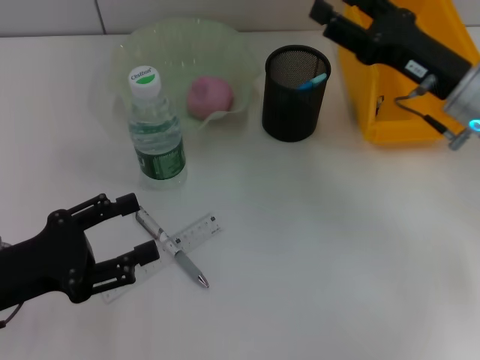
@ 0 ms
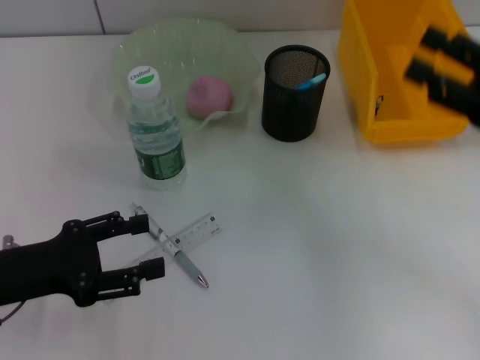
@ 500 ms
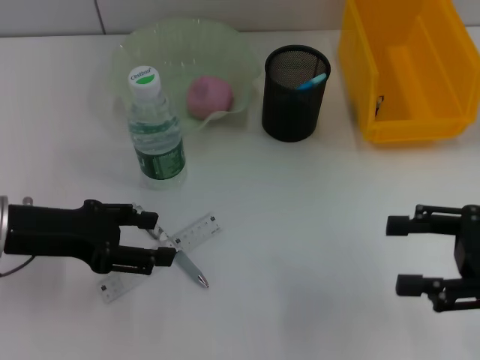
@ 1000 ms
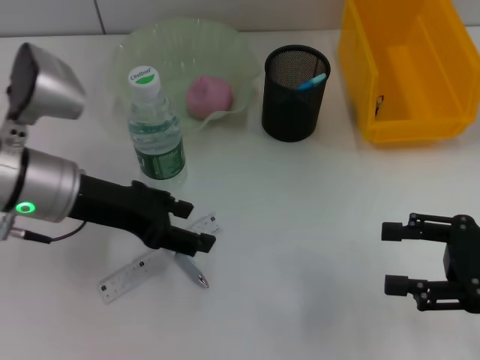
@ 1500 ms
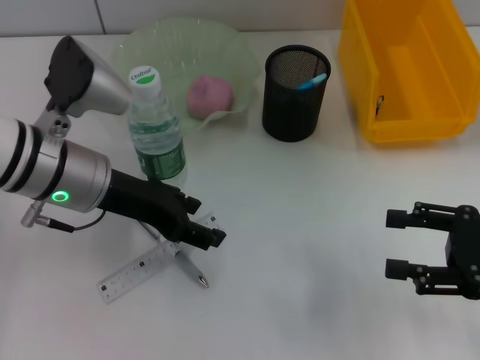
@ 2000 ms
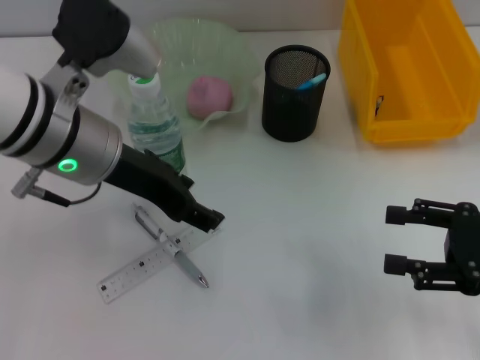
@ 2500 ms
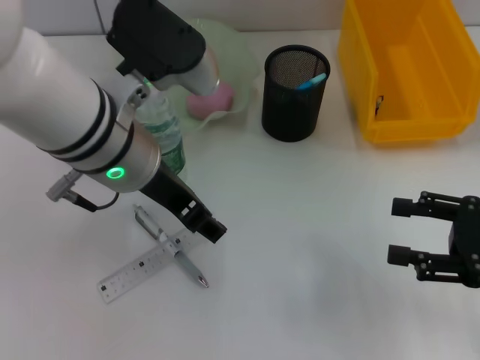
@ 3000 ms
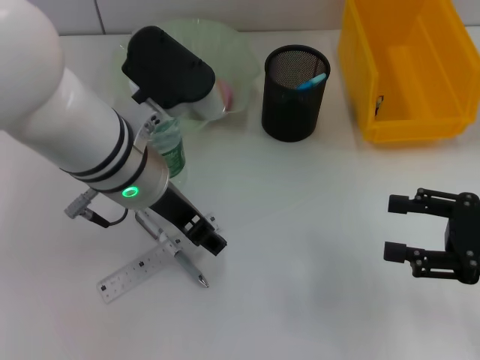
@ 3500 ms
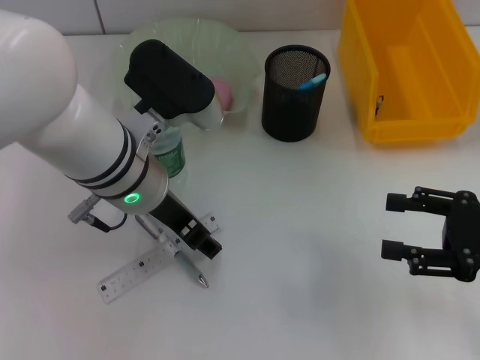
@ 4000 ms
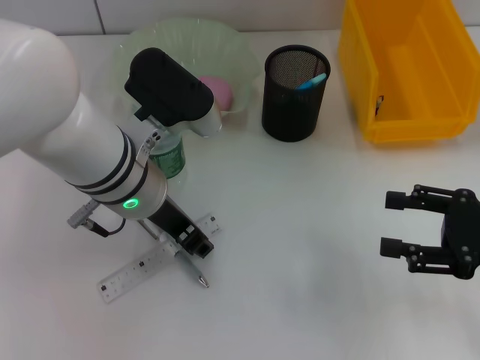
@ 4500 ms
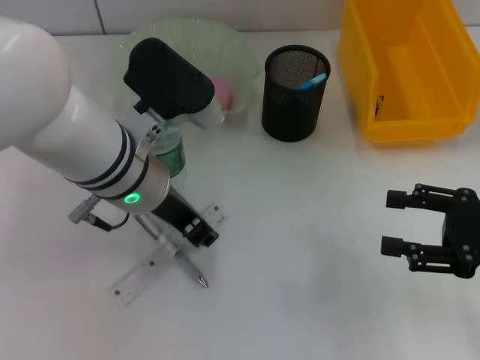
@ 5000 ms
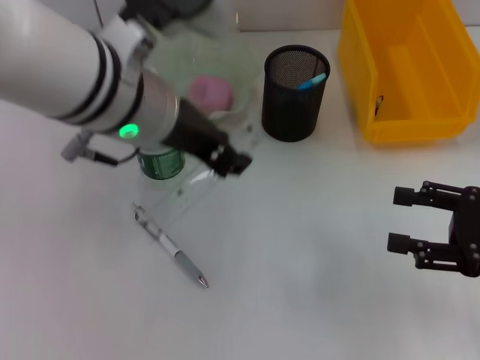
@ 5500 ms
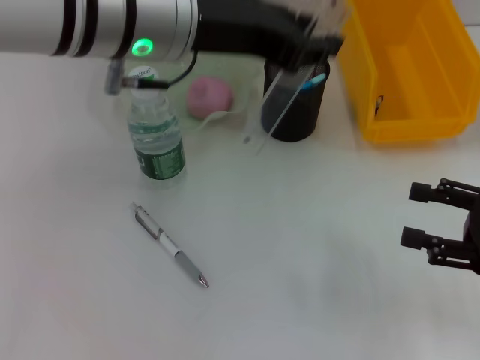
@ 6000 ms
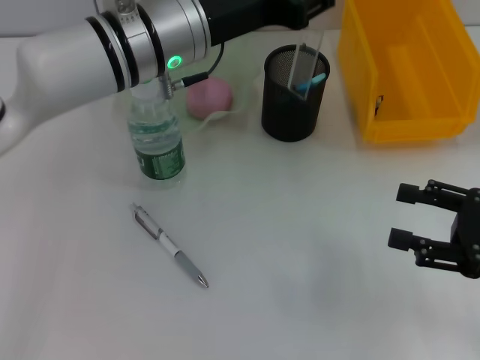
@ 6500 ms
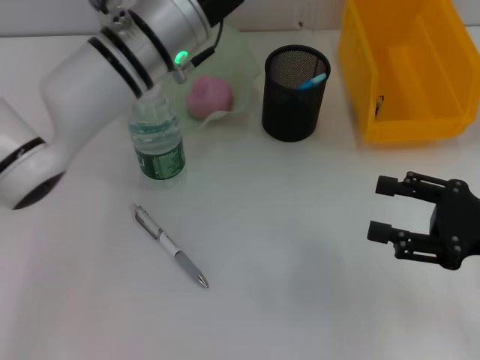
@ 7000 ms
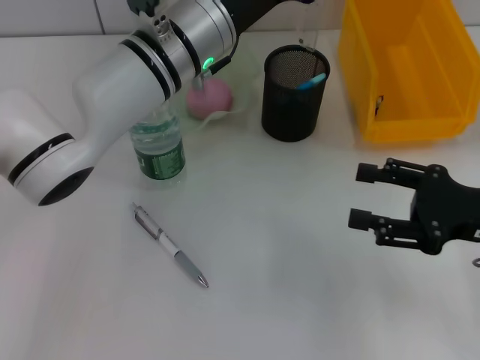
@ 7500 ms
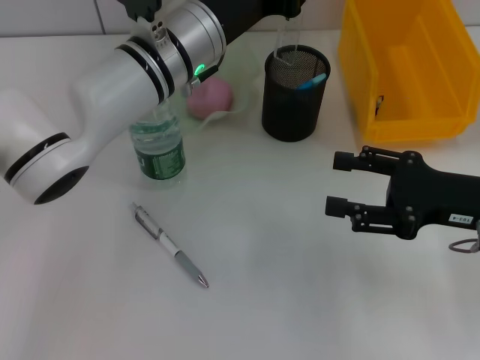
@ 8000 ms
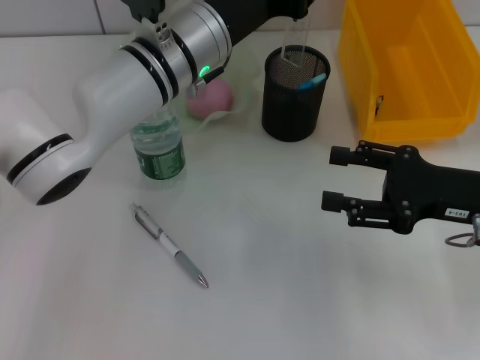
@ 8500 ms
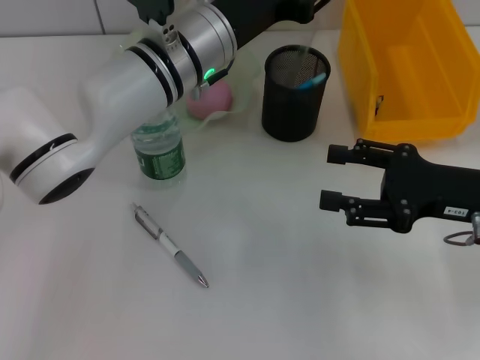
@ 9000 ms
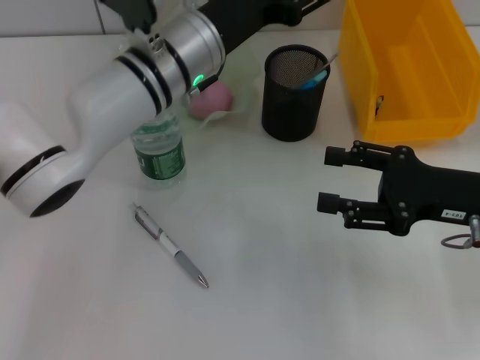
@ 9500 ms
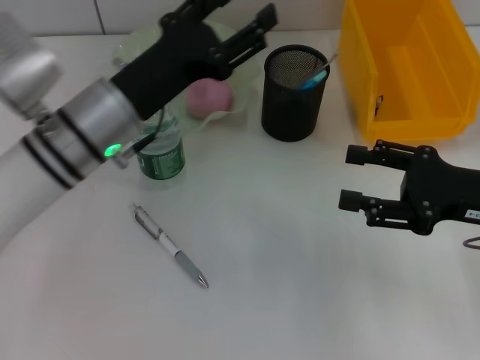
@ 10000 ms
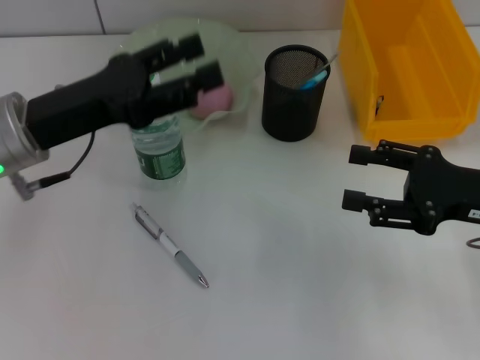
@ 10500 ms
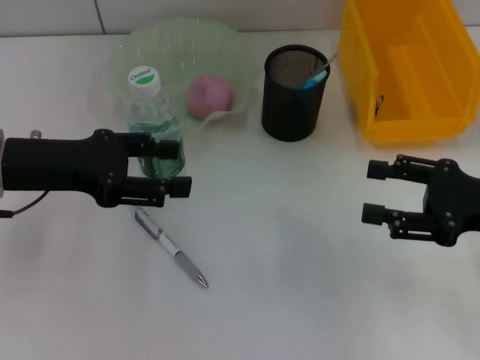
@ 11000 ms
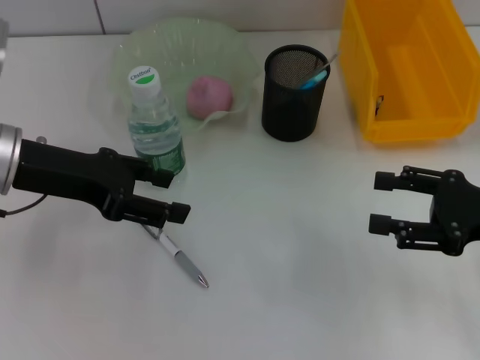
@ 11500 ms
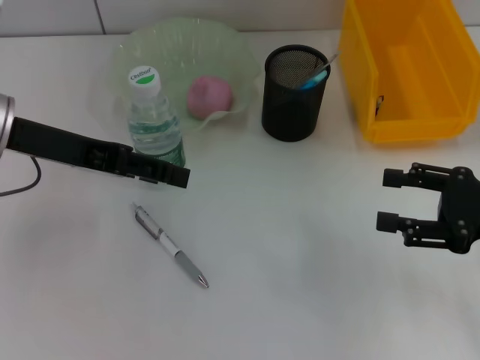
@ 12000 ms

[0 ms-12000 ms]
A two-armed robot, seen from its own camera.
Step, 0 ms to 5000 ms: Grab the ruler with the left hand.
Step, 5500 ms to 9000 ms: Place the ruler into the pen holder with the left hand.
0 ms to 2000 ms: The right gripper shifts about 15 cm backward and to the right, while the left gripper heads forward, to the right and upward, covering some 15 cm.
2000 ms to 4000 ms: The left gripper is displaced to the right by about 5 cm.
4000 ms to 6000 ms: The left gripper goes approximately 10 cm upward, and closes up.
6000 ms to 8000 ms: The right gripper is displaced to the left by approximately 5 cm, while the left gripper shifts approximately 15 cm downward and forward.
8000 ms to 10000 ms: The left gripper goes roughly 10 cm to the left and backward, and opens its fingers.
10000 ms to 12000 ms: The left gripper heads to the left and upward, covering approximately 10 cm.

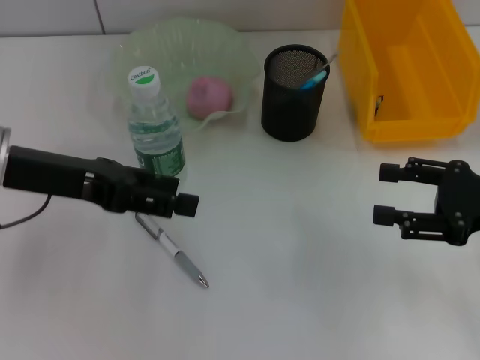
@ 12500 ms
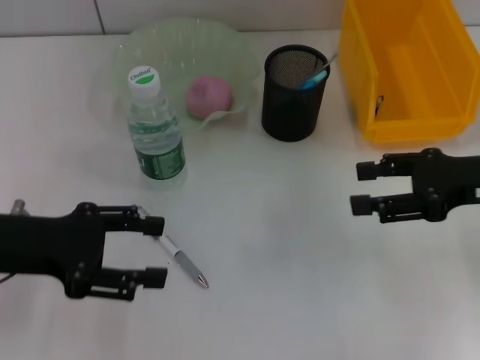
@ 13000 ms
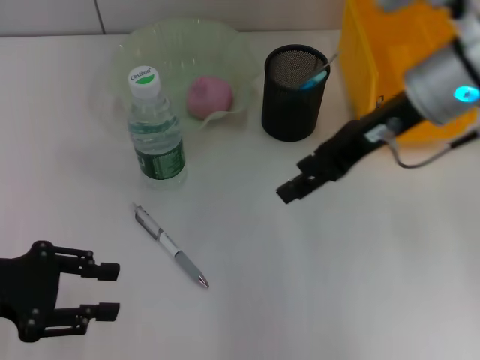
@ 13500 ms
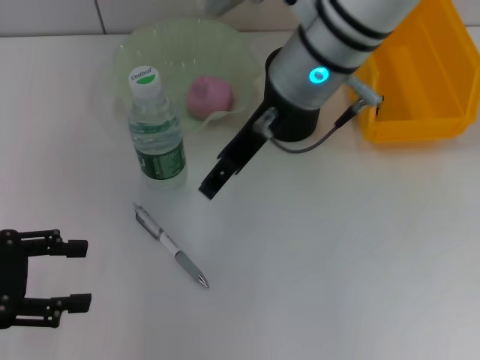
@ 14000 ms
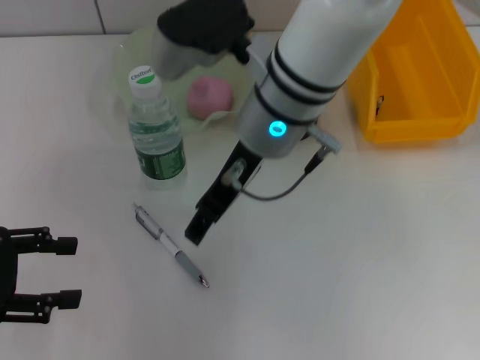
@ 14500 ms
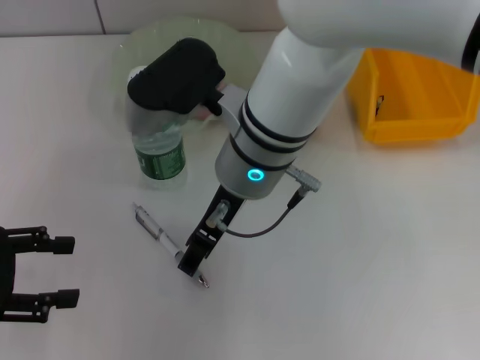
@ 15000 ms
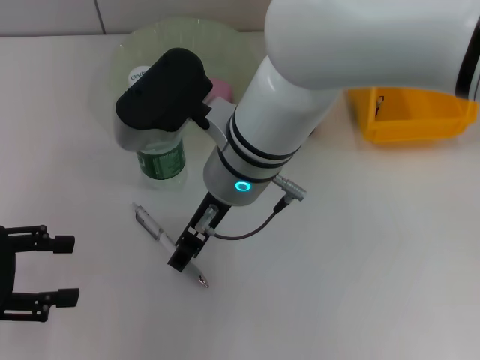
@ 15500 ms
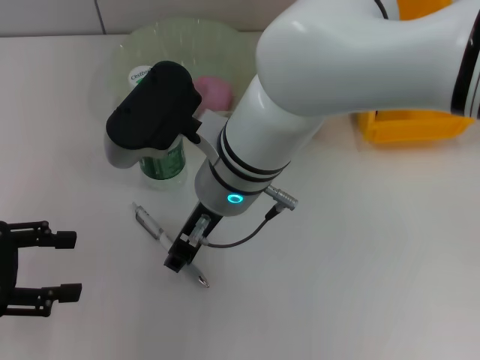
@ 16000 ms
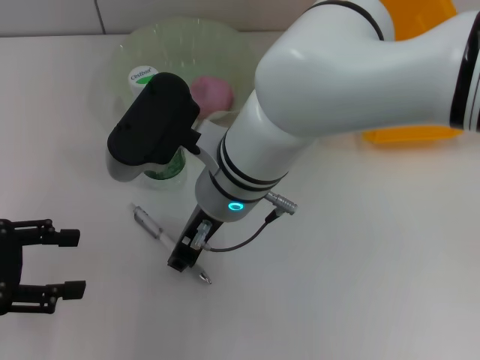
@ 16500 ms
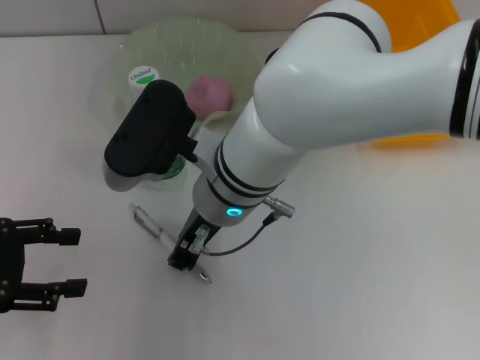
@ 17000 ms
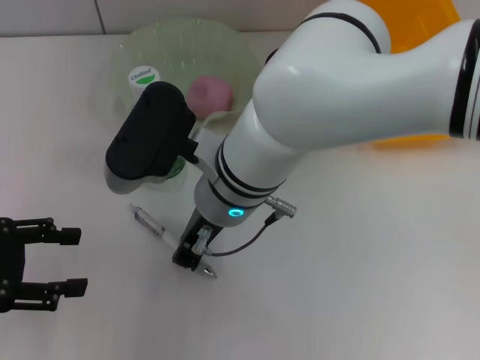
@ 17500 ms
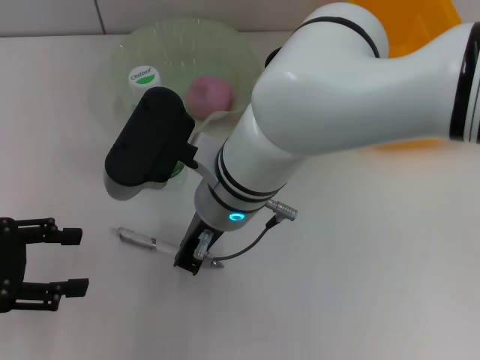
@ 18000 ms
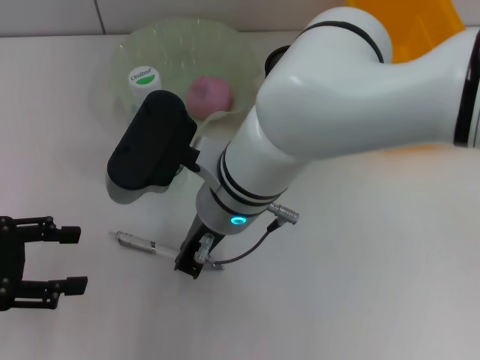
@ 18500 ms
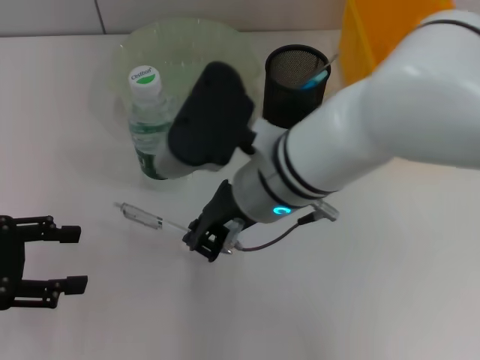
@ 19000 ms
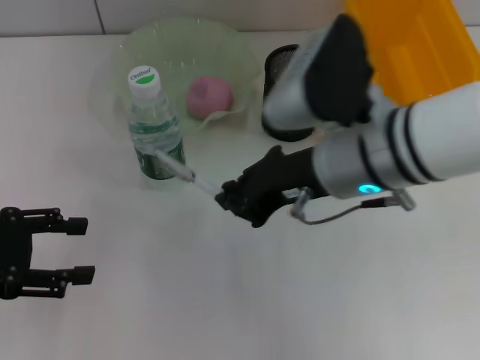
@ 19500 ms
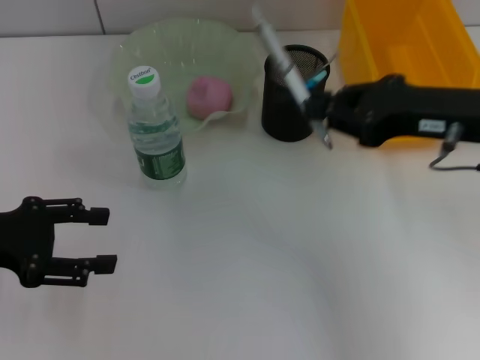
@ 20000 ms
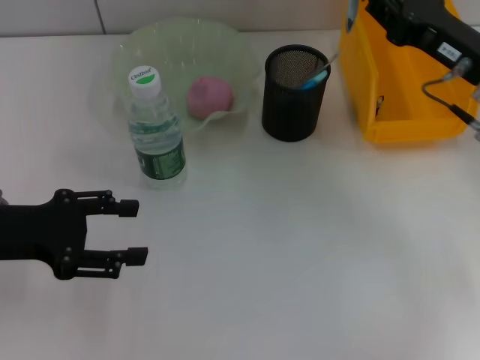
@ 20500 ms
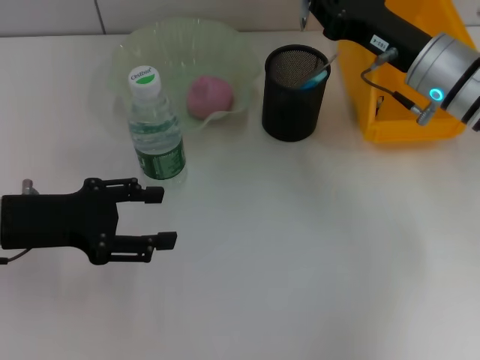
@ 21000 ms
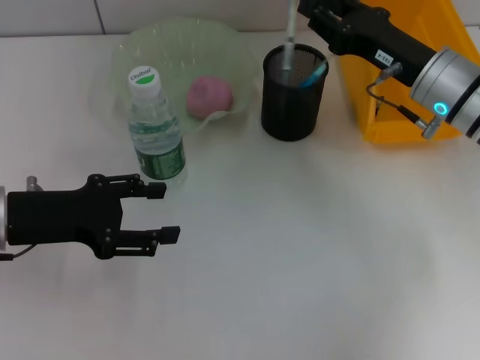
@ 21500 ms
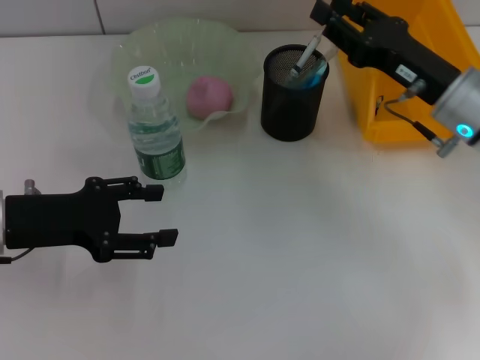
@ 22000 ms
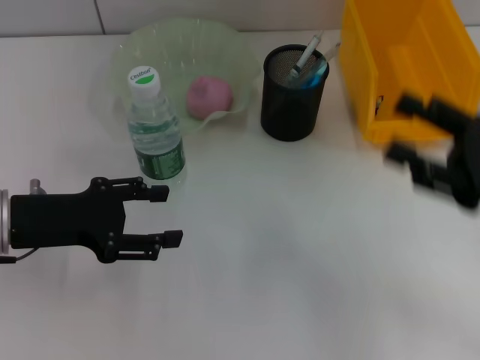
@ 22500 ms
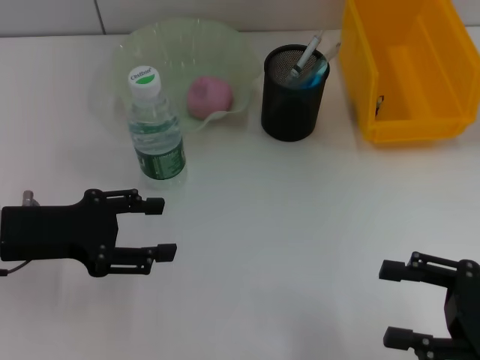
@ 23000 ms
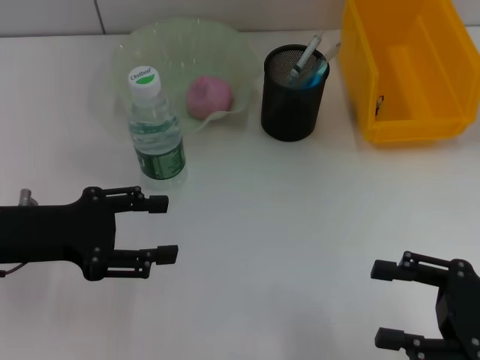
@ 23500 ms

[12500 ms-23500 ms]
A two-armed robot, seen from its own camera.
Step, 12500 ms to 18000 ms: Grab the gray spring-action pen with the right hand.
Step, 18500 ms to 21500 ms: Place the gray spring-action pen into the pen holder with the right hand.
12500 ms to 14500 ms: The left gripper is displaced to the left, backward and downward by approximately 15 cm, while the right gripper is displaced to the left by approximately 30 cm.
14500 ms to 16000 ms: The right gripper moves approximately 5 cm.
16000 ms to 18000 ms: The right gripper closes its fingers.
18000 ms to 20000 ms: The right gripper goes about 25 cm to the right.
20000 ms to 21500 ms: The left gripper shifts some 5 cm to the right. The right gripper goes some 10 cm downward and forward.
21500 ms to 23500 ms: The right gripper shifts some 20 cm backward and to the right, and opens its fingers.
